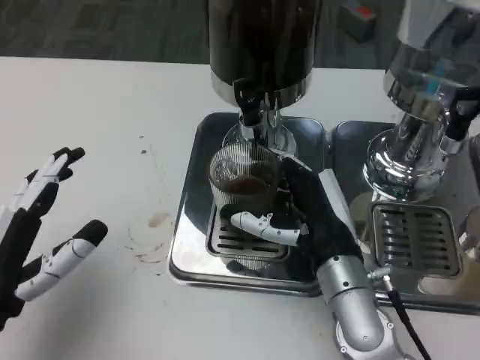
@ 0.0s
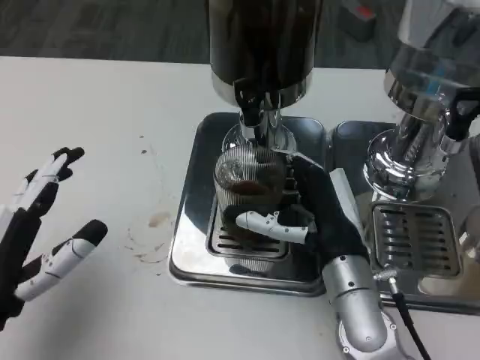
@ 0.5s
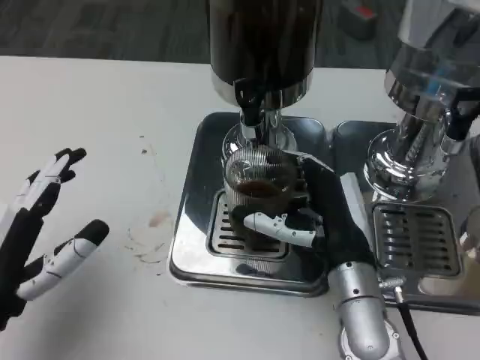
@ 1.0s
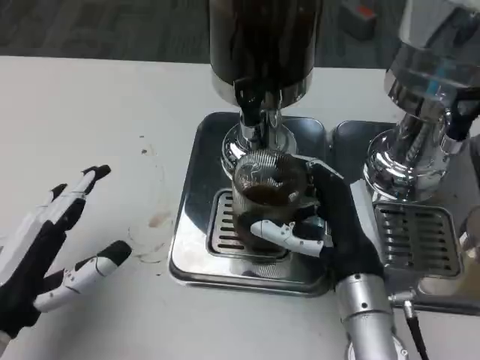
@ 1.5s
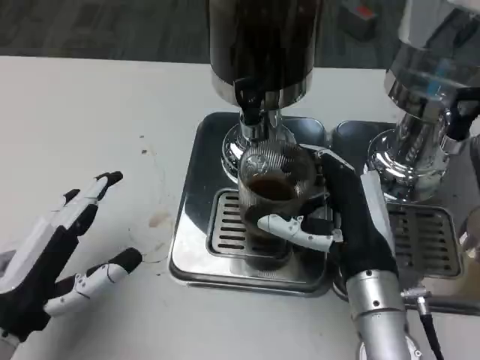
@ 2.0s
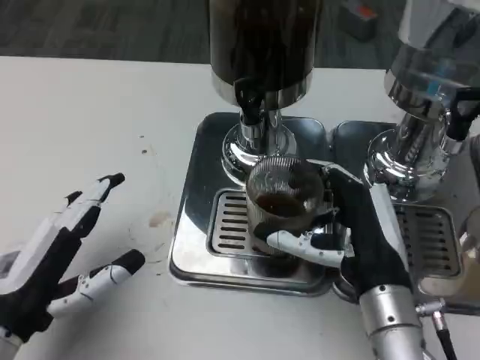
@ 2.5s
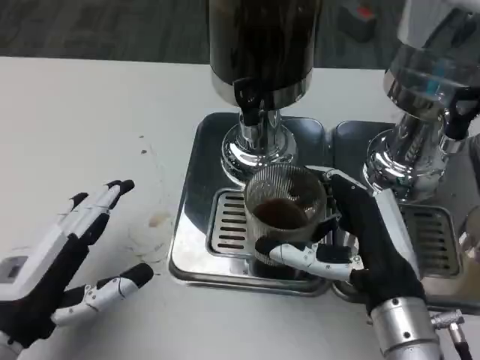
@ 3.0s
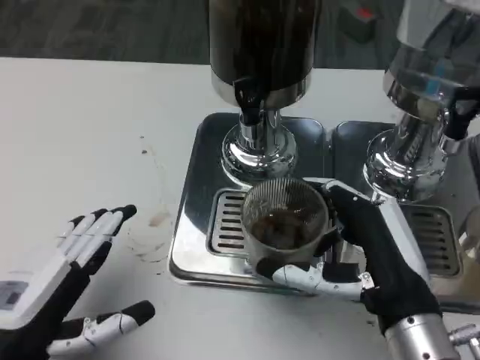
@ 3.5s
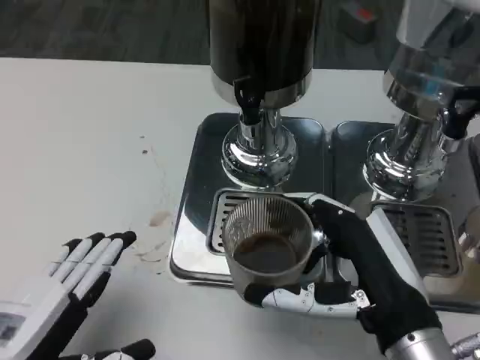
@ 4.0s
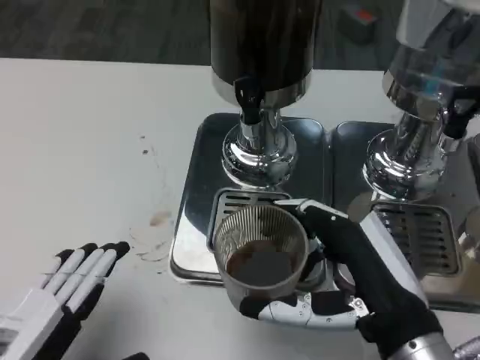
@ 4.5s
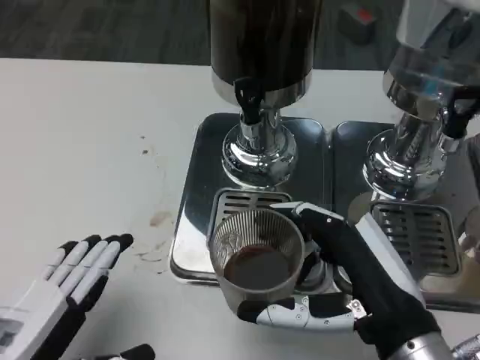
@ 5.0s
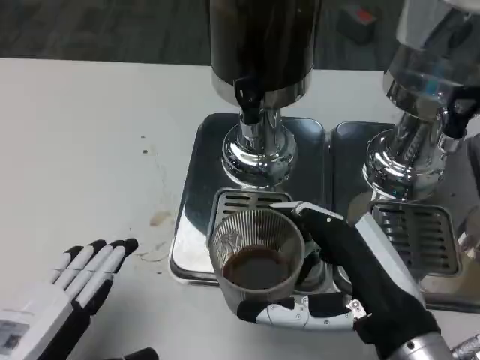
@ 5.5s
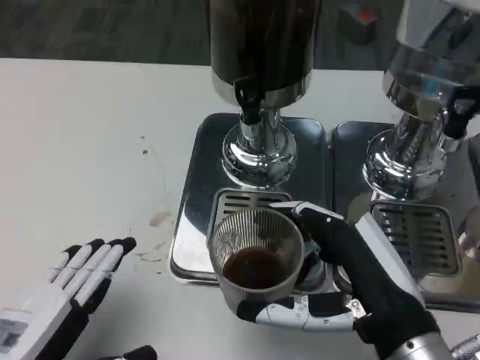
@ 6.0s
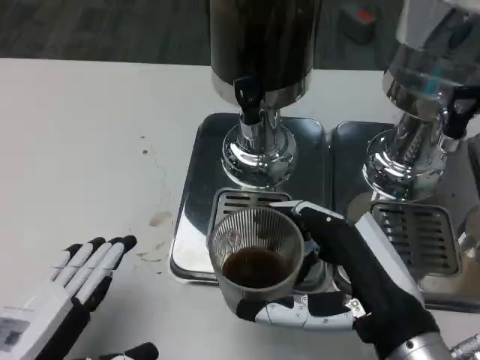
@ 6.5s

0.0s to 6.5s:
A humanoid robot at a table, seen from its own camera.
Task of the whole recording: Grasp the cup under the faucet to collect the drink, then remove the cup.
2.0s to 4.5s: The two hands go about 10 cm backward.
4.5s to 6.5s: Both hands stay put.

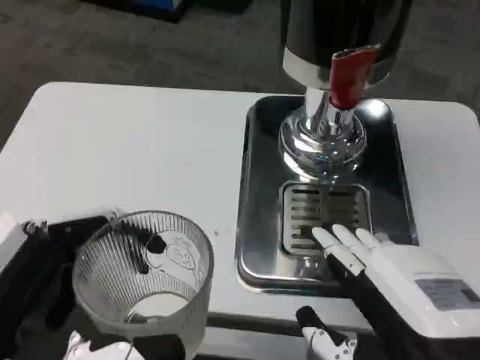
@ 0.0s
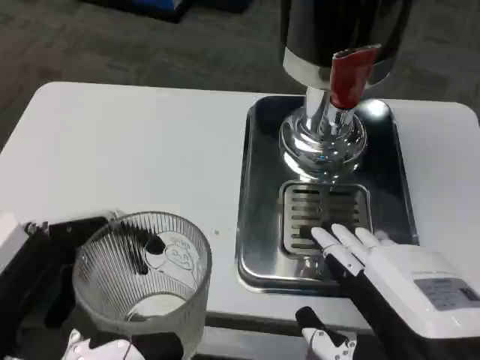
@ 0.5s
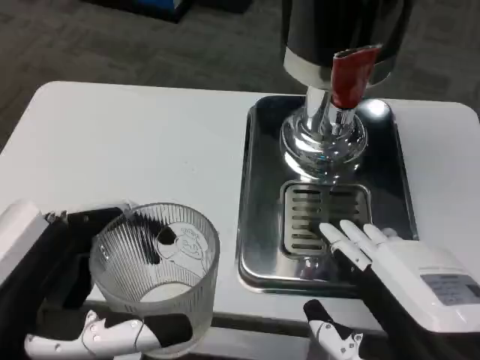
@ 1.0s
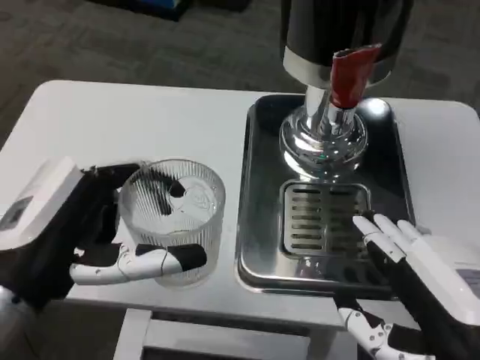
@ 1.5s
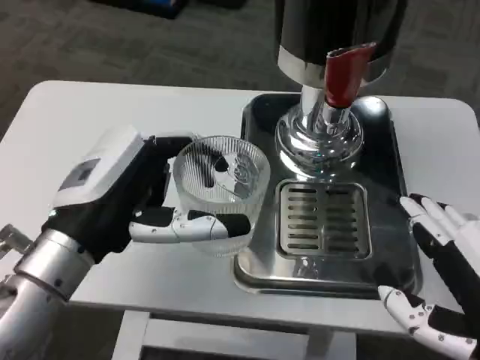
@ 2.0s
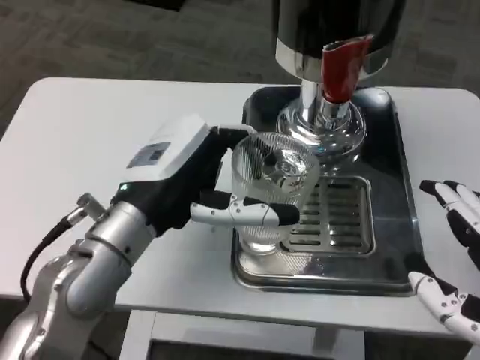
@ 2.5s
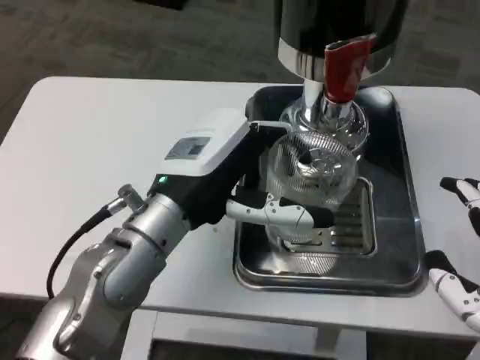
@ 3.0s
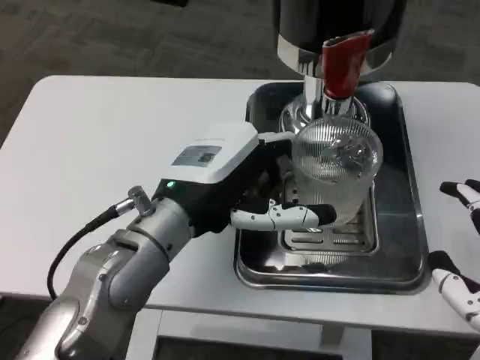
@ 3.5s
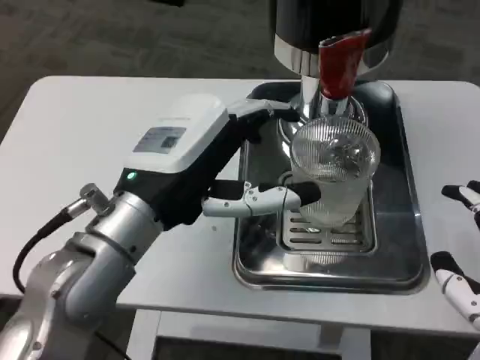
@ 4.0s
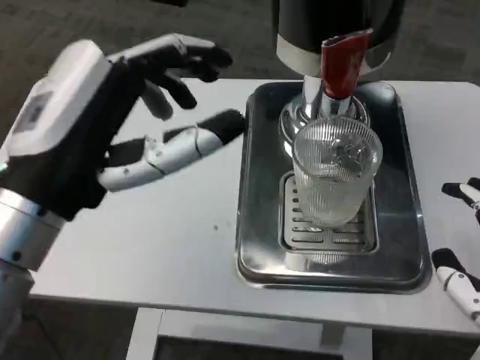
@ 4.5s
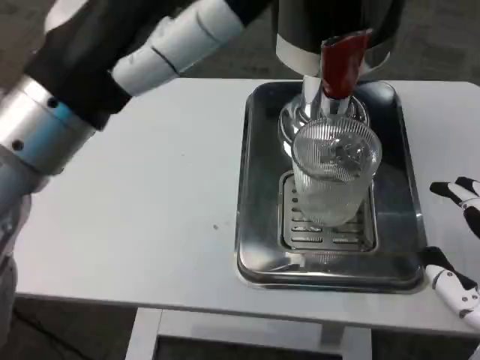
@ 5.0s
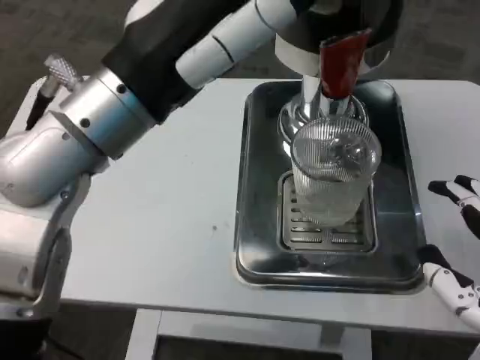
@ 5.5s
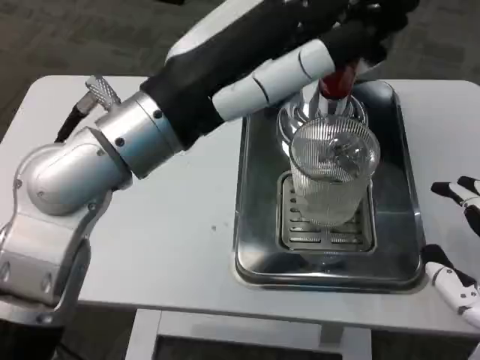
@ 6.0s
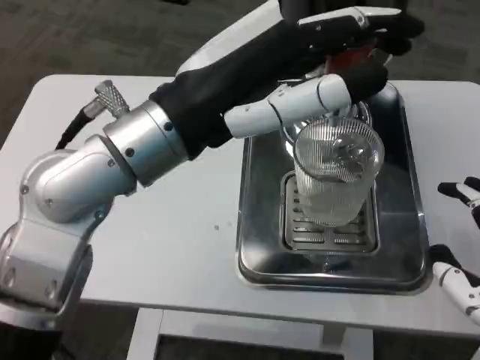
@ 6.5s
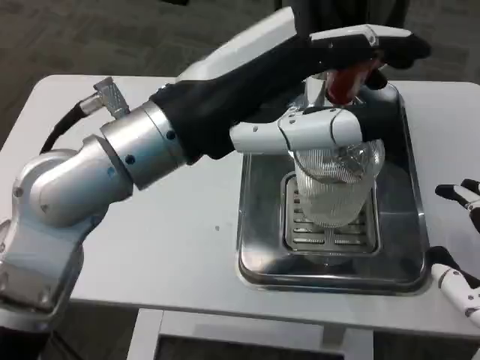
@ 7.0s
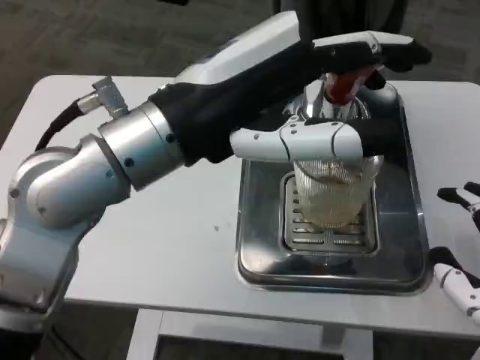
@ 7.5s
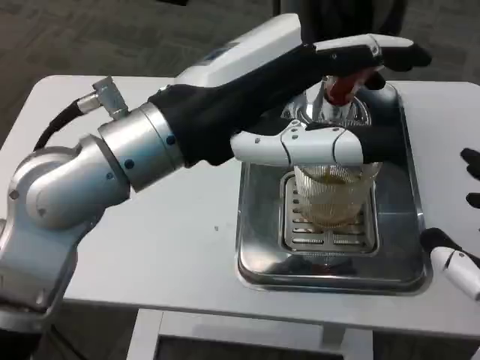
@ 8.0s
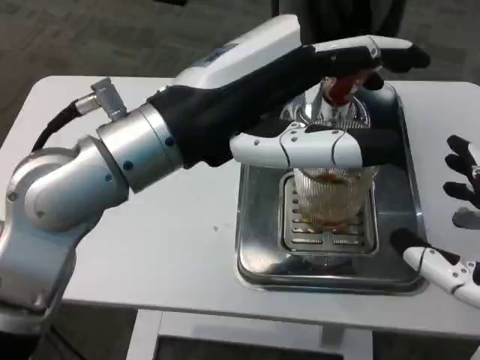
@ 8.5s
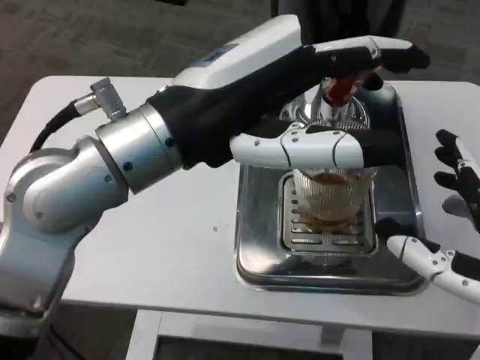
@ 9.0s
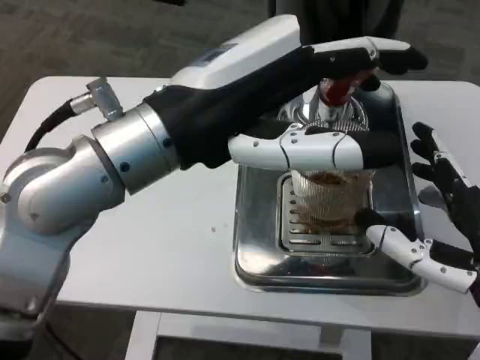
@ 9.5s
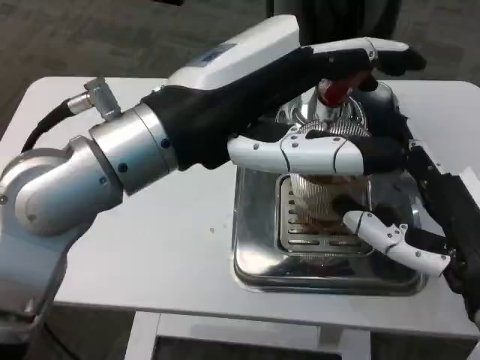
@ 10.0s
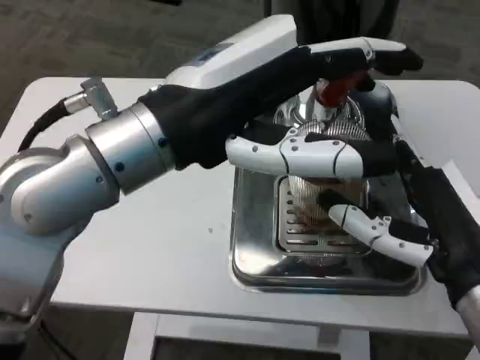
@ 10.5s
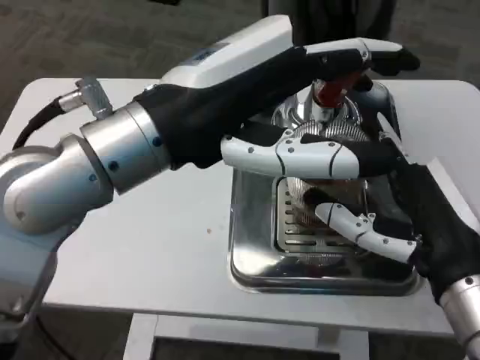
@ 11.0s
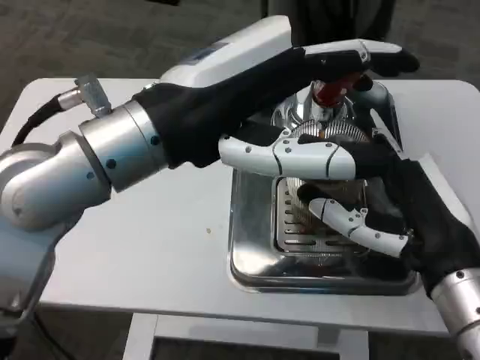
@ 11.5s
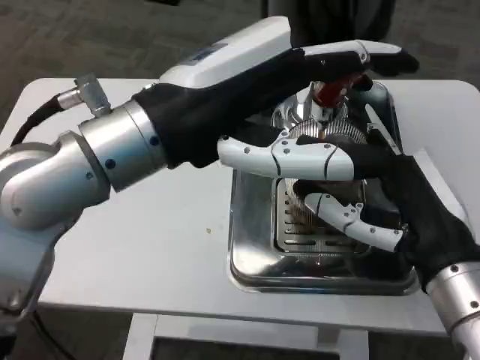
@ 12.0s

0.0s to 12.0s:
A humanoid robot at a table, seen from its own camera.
Task of the whole recording: Grasp the cup under the faucet to collect the drink, then remove the cup.
0.0s to 2.0s: The left hand travels forward by some 15 cm.
4.0s to 6.0s: The left hand shifts roughly 10 cm upward.
8.0s to 10.0s: The right hand goes roughly 5 cm forward.

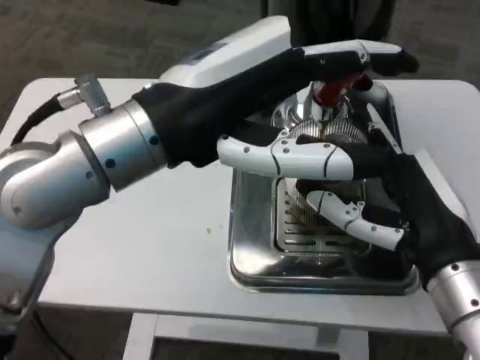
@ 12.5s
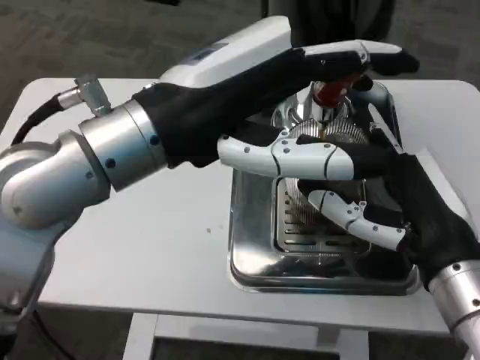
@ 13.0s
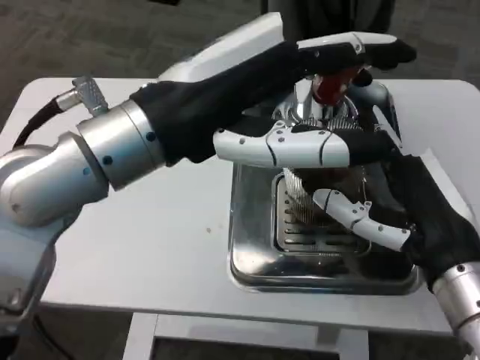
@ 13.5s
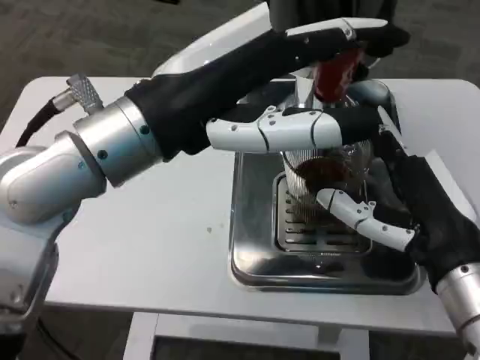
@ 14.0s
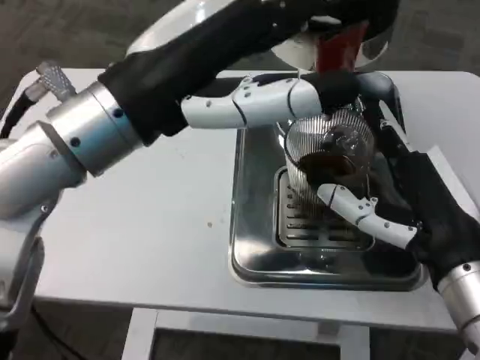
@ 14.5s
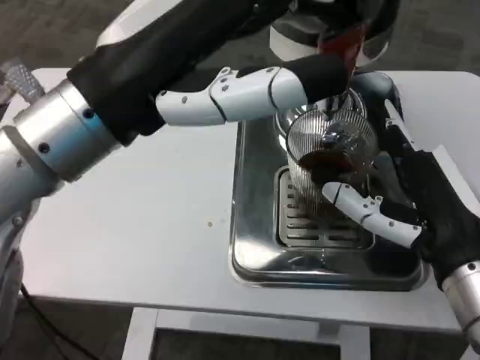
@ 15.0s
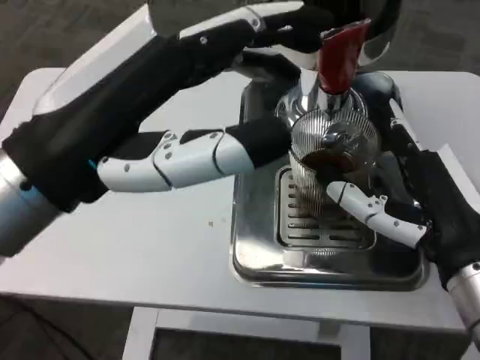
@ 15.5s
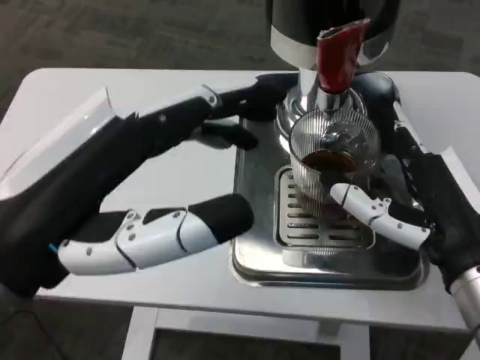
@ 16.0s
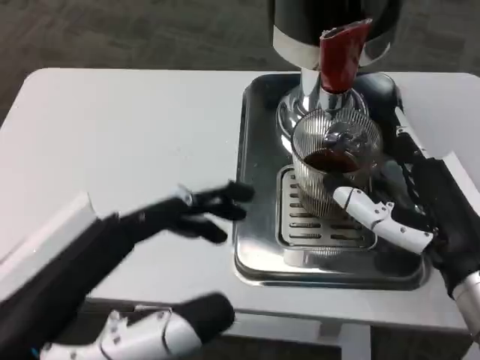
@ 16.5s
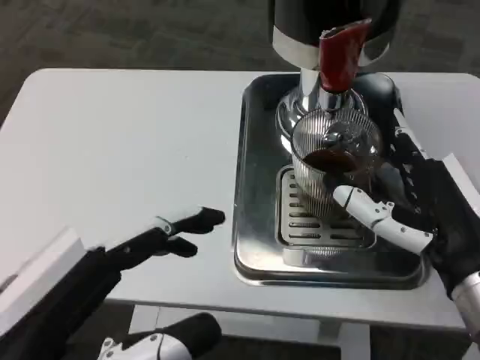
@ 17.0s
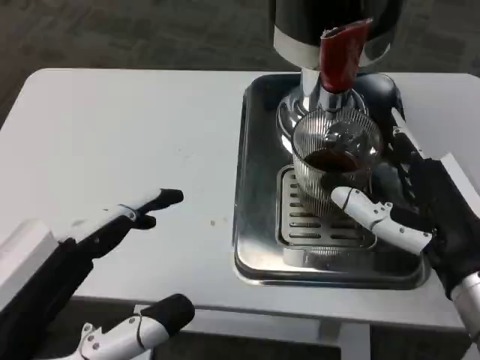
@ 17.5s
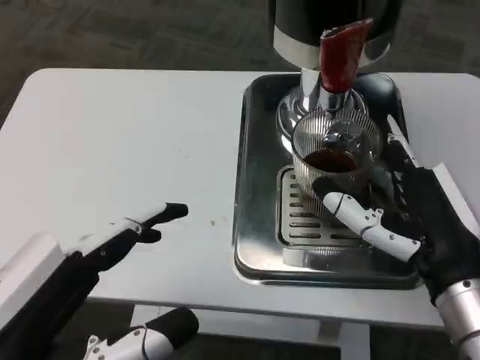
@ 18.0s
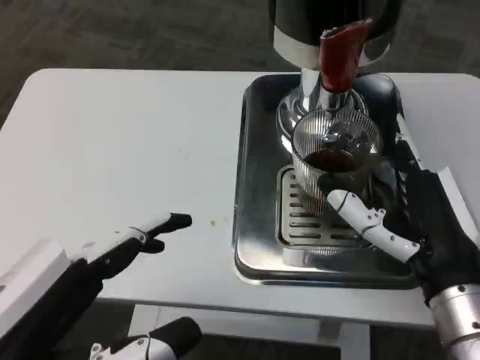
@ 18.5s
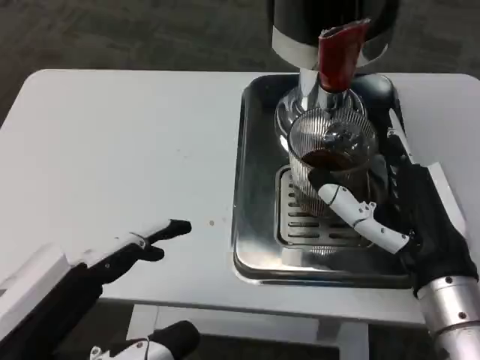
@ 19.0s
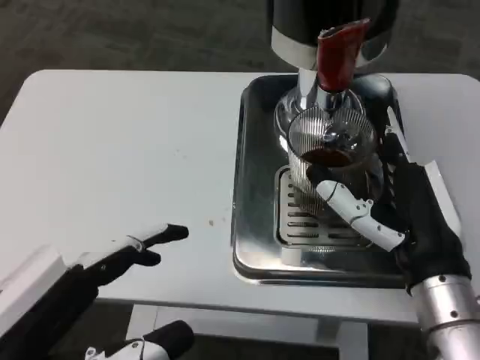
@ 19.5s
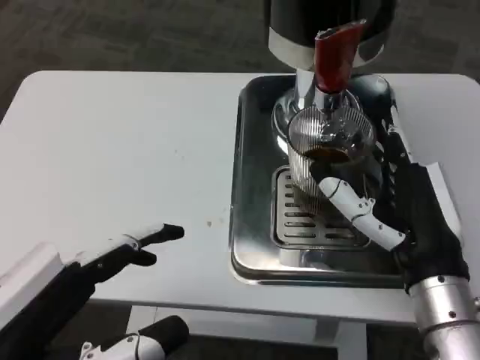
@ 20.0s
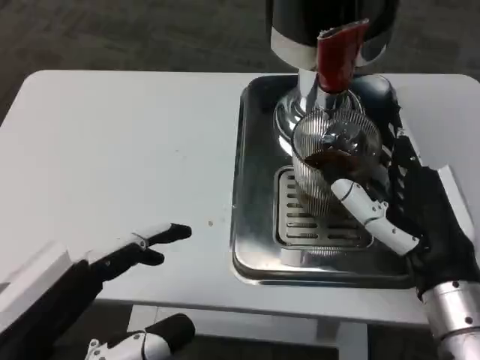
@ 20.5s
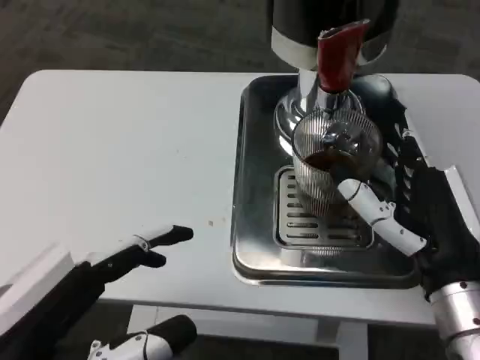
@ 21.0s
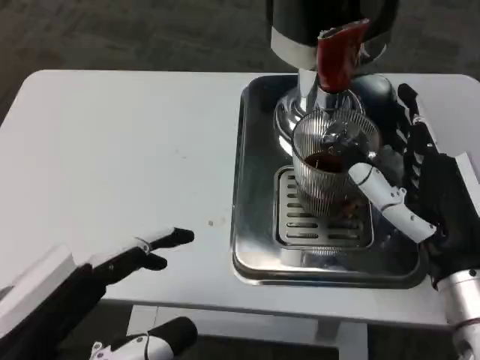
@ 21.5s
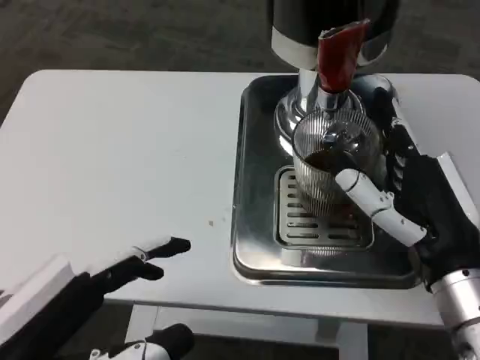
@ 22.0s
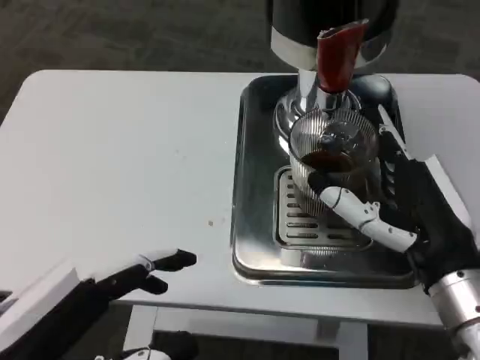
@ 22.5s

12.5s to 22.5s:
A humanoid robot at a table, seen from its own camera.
Task of the whole recording: Grasp the cup under the faucet to collect the drink, then remove the cup.
14.5s to 16.5s: The left hand heads backward, downward and to the left, covering some 20 cm.
18.5s to 22.5s: The hands move only a little.
